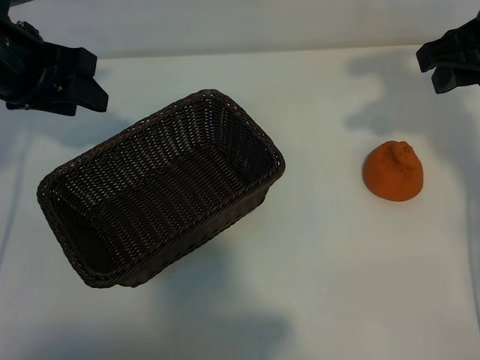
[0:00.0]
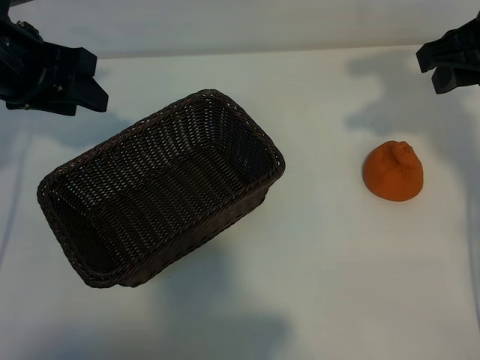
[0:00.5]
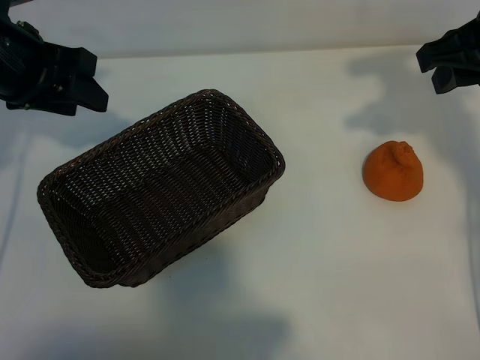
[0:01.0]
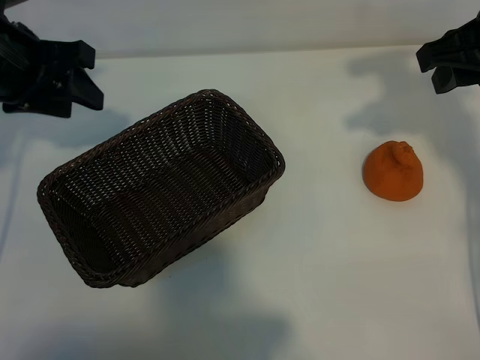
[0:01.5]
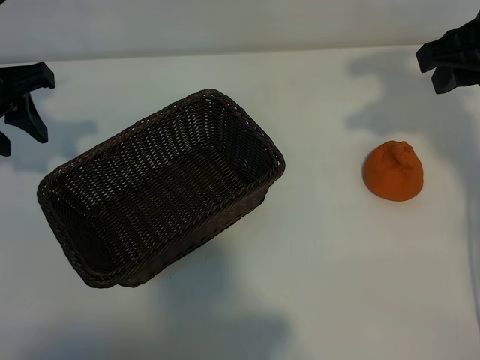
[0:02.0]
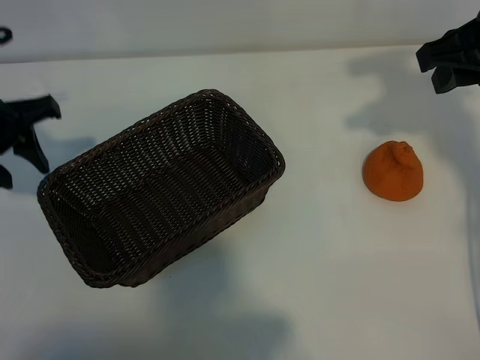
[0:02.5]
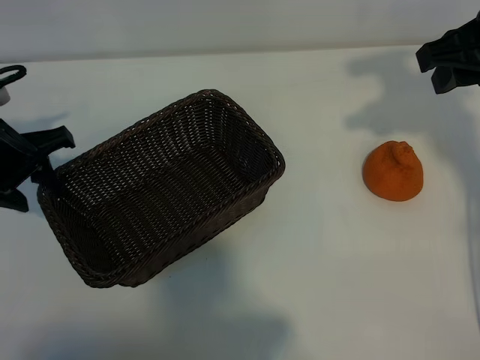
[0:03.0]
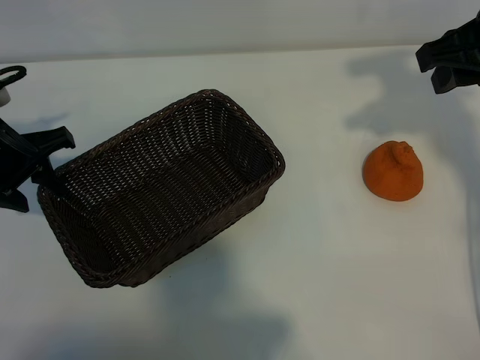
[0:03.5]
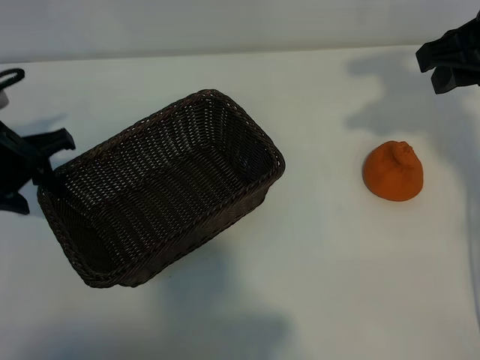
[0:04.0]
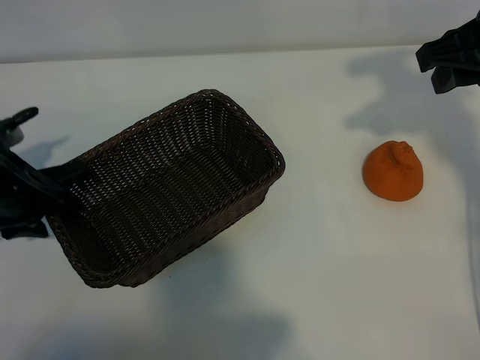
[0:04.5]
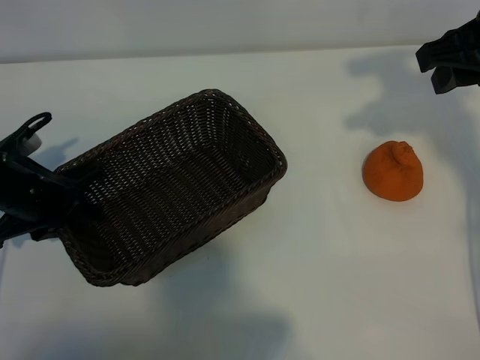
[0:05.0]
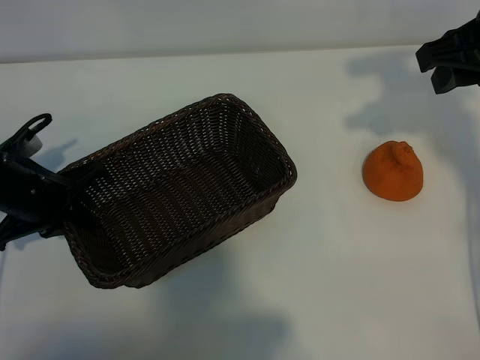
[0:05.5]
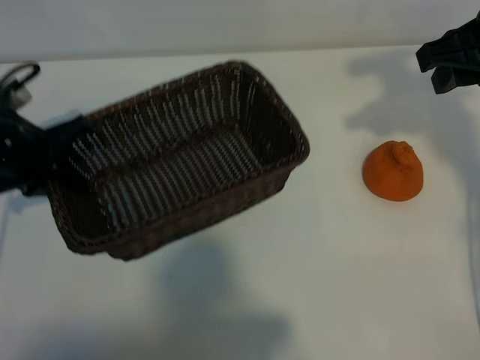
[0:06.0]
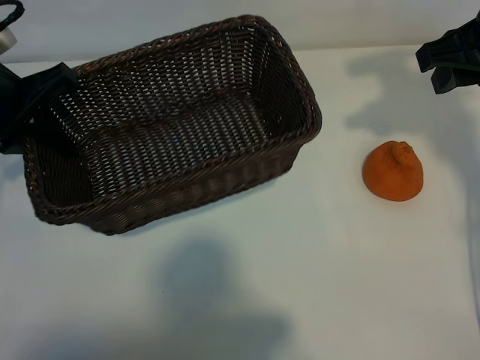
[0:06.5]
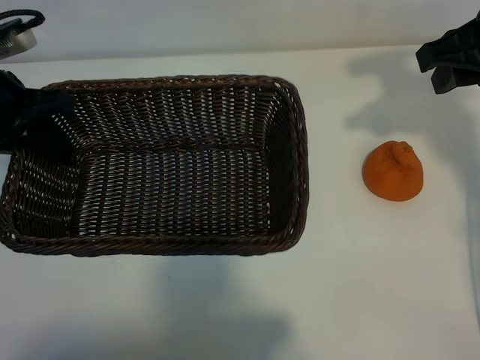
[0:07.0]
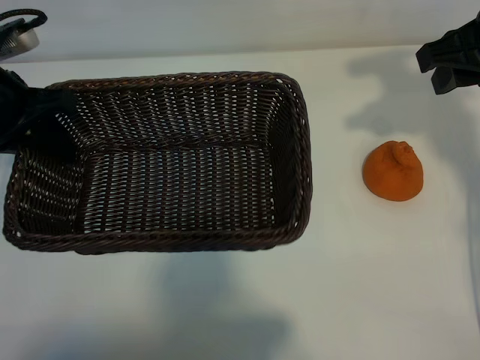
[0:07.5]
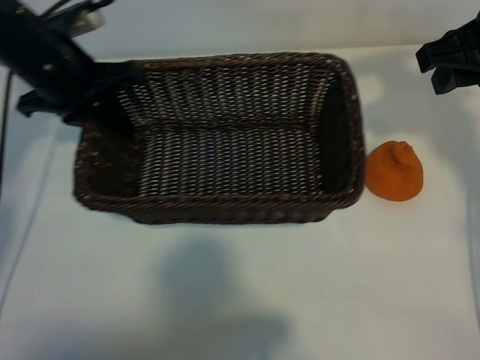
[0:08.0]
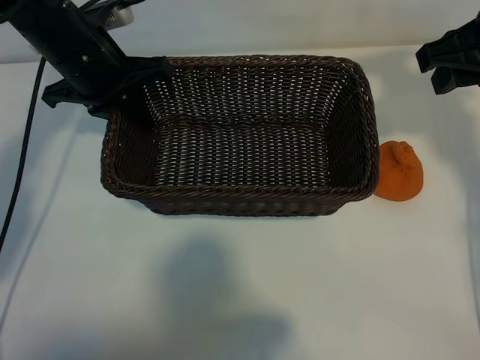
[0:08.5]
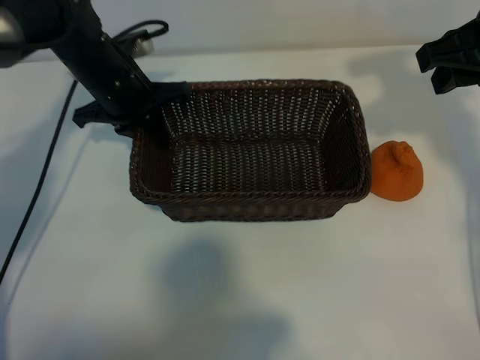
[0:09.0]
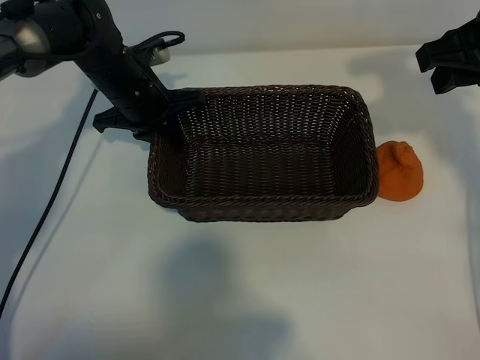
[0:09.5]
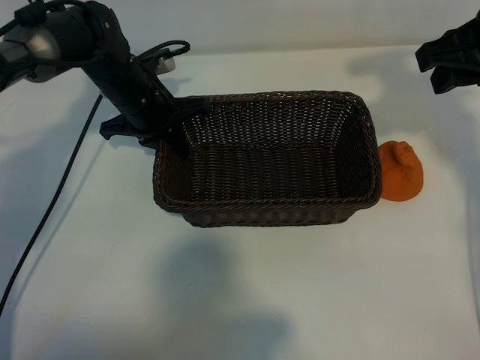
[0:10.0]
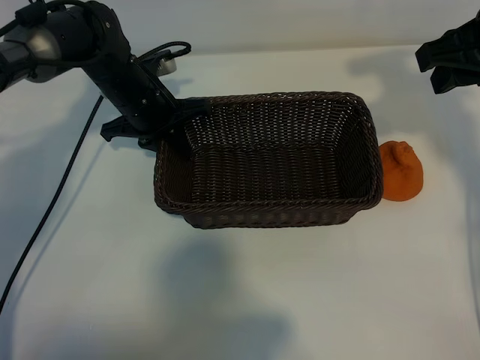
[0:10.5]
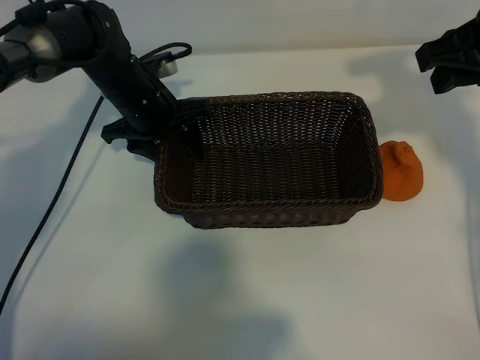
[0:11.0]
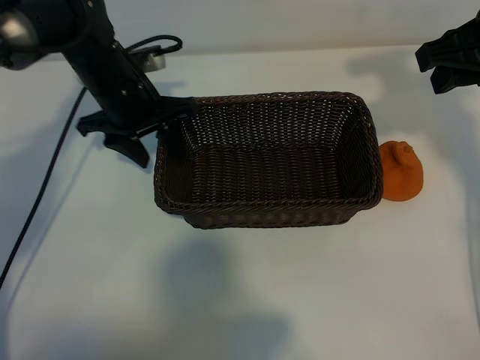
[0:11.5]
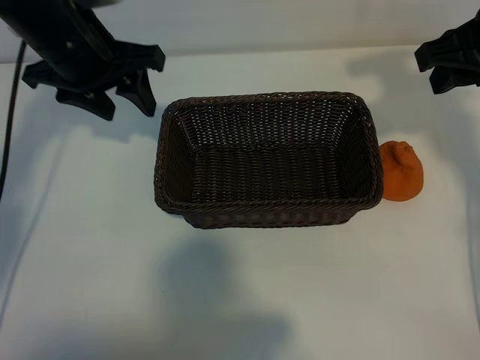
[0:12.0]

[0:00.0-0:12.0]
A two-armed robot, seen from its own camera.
Task of the whole recording: pick up the orange and put it into the basket.
Step, 0:01.5 to 0:05.0: Grasp the basket with left gripper.
Step, 0:05.5 to 0:10.5: Place the basket in the center of view with left gripper.

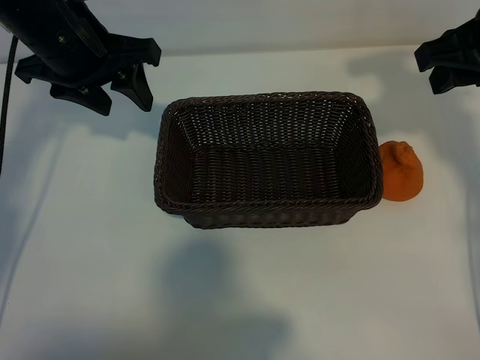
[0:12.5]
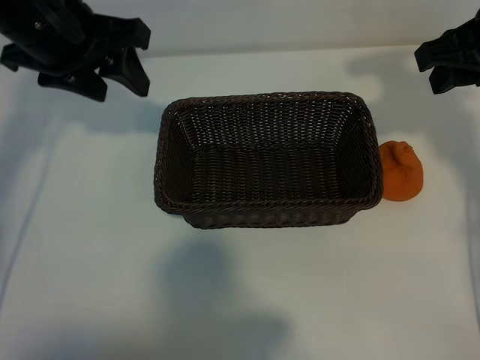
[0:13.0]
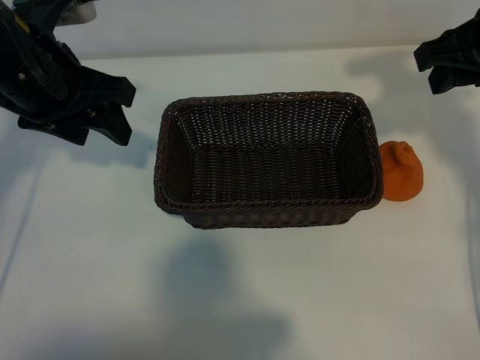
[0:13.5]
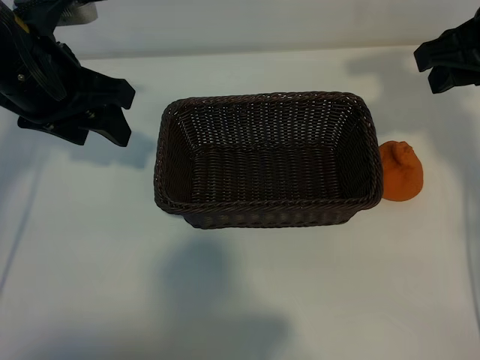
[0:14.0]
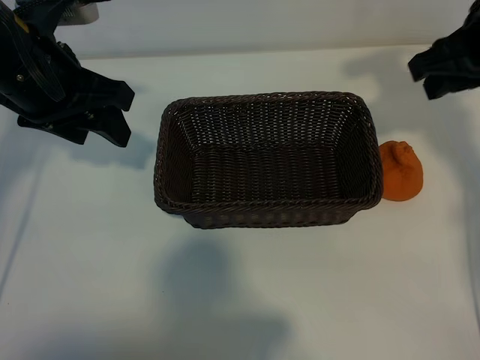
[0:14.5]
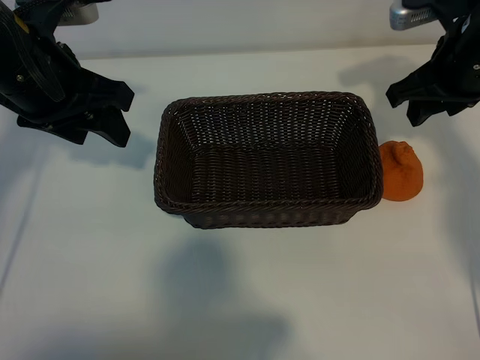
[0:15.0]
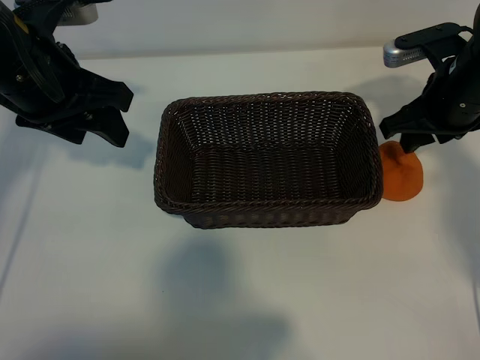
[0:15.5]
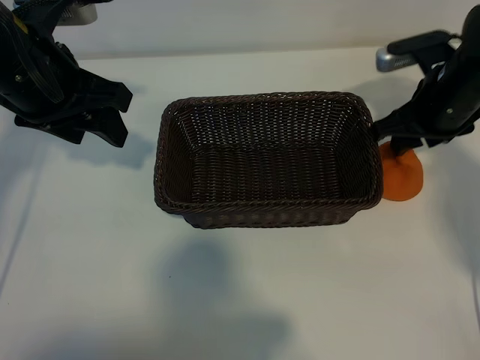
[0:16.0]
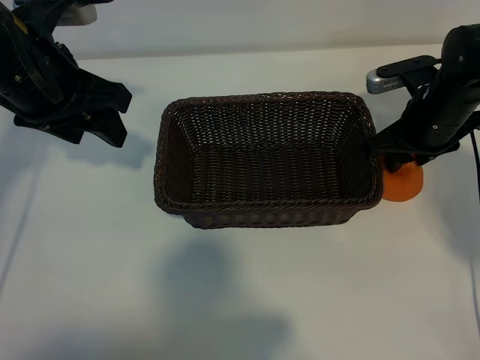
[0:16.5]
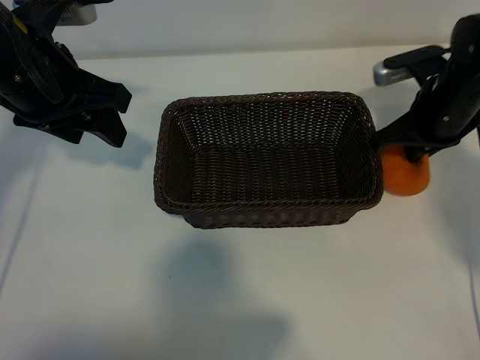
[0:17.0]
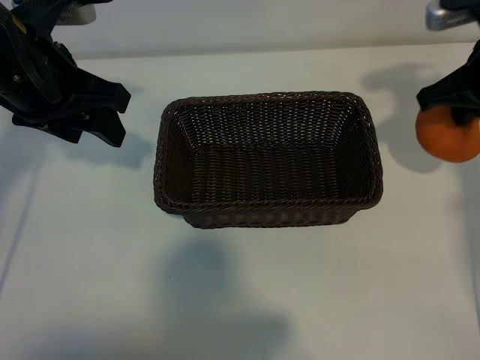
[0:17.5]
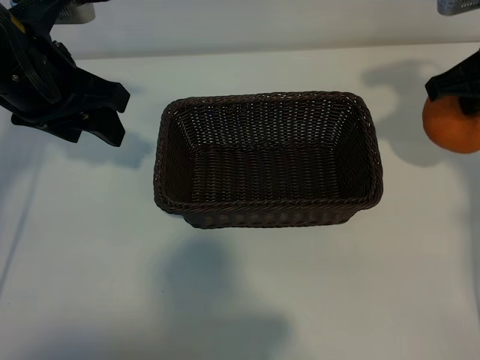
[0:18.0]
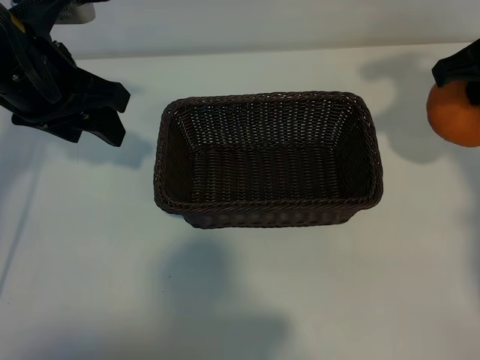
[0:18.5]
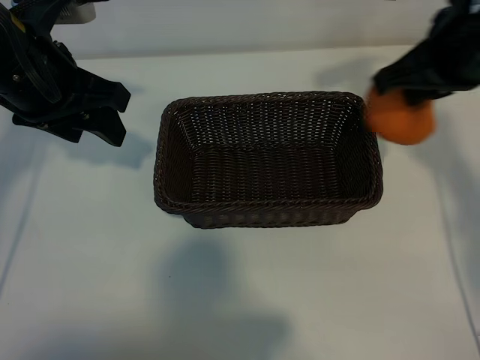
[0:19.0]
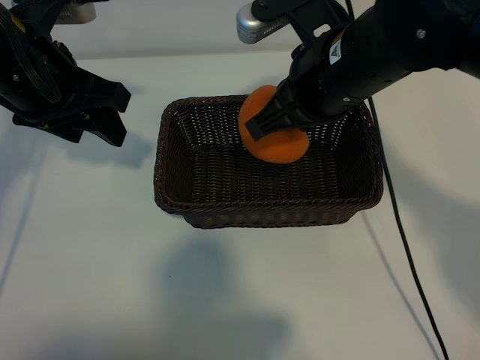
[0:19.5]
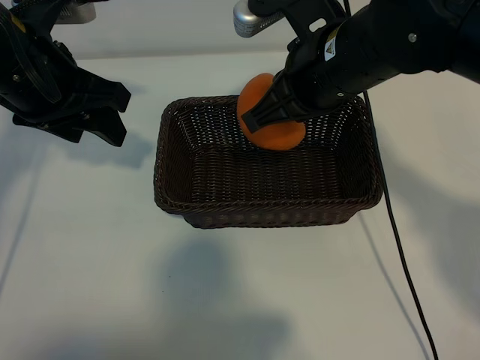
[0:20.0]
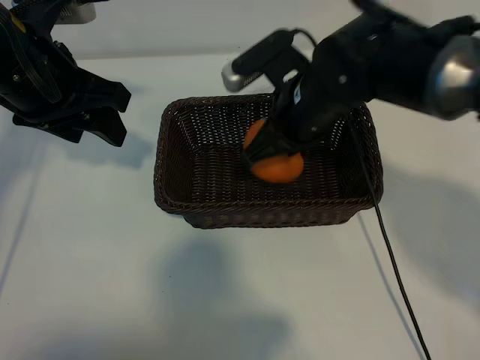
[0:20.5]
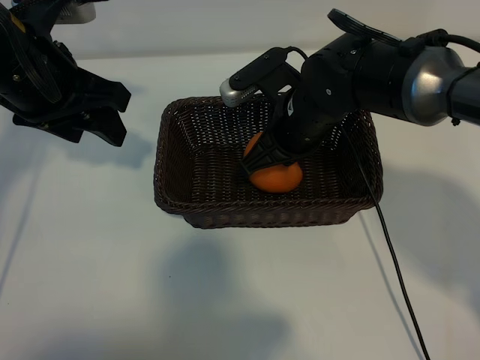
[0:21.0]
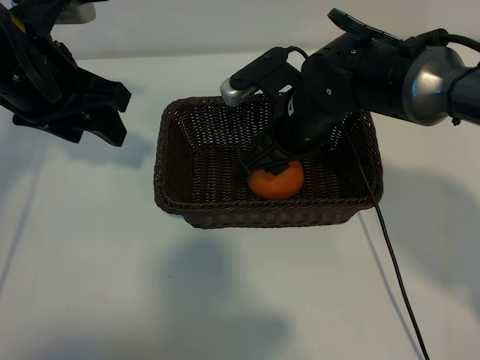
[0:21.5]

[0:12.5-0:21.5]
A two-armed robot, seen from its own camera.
Task of the whole recording: pick up the orange and put it into the basket.
Step, 0:12.5 to 0:16.5: Grasp the orange with right gripper.
Step, 0:17.0 to 0:21.0: Place the orange in the basket with right gripper.

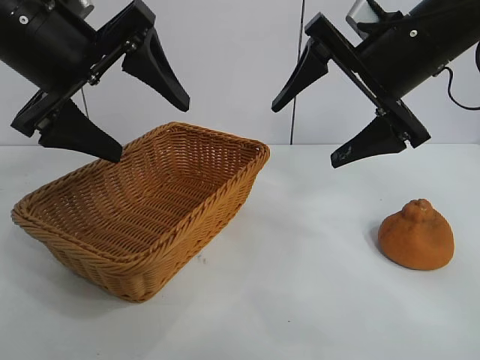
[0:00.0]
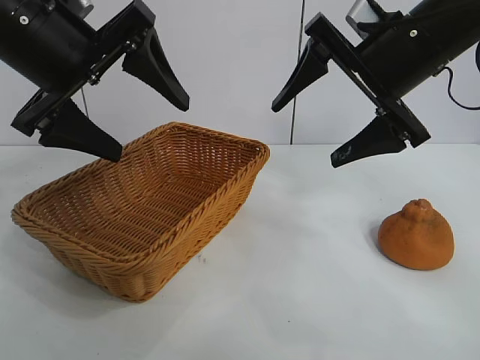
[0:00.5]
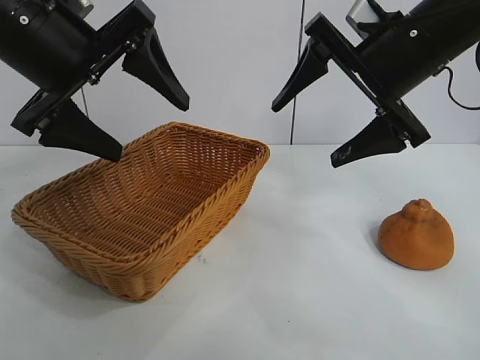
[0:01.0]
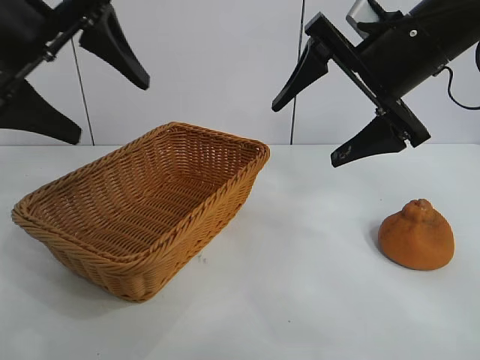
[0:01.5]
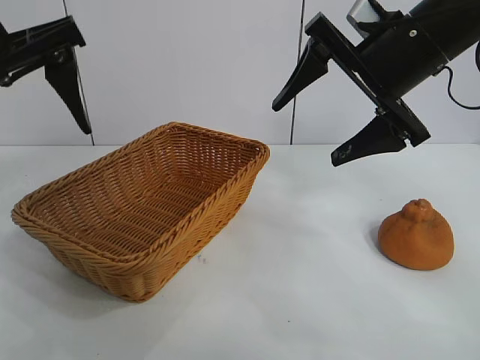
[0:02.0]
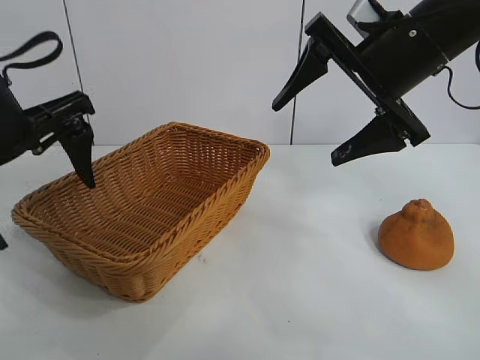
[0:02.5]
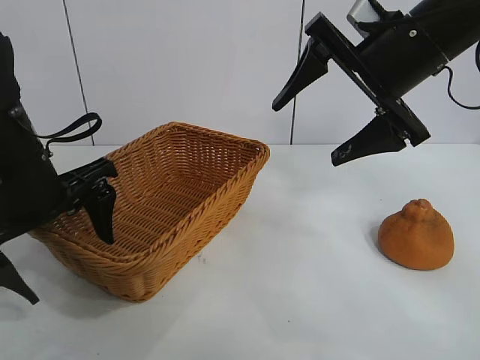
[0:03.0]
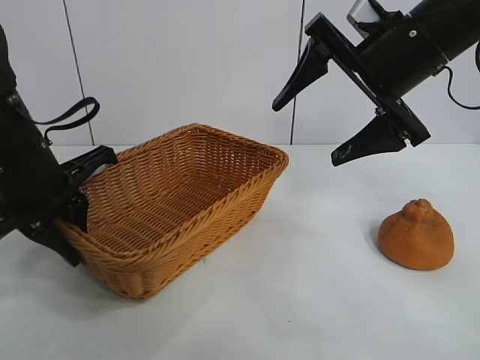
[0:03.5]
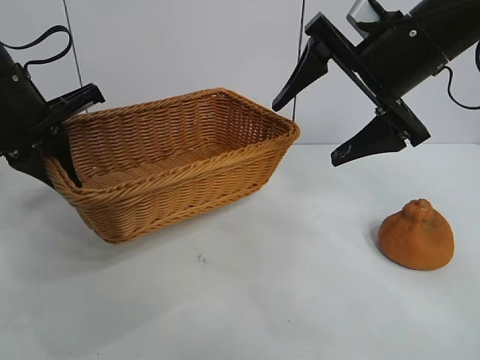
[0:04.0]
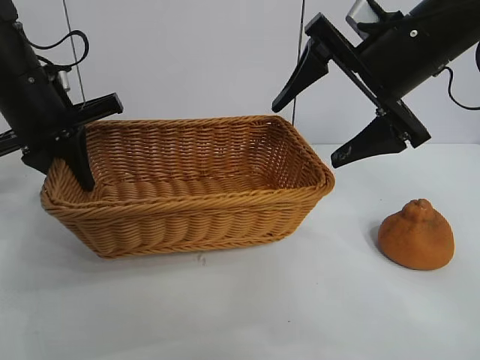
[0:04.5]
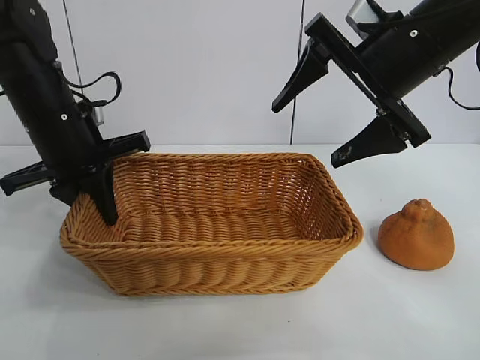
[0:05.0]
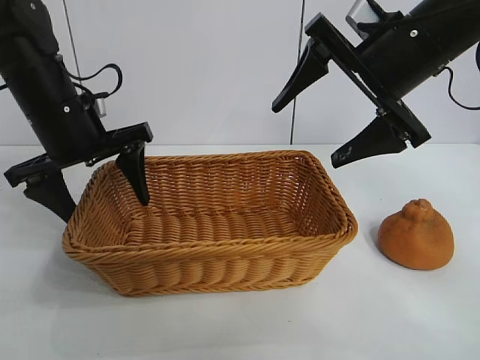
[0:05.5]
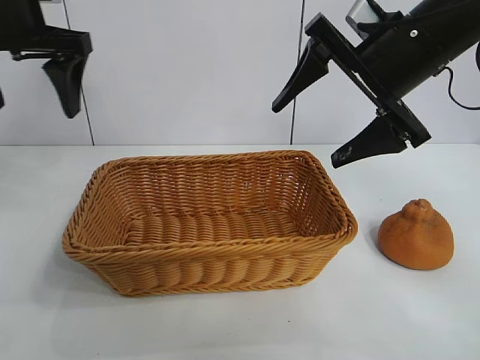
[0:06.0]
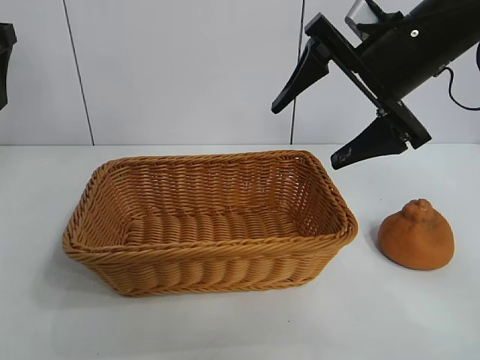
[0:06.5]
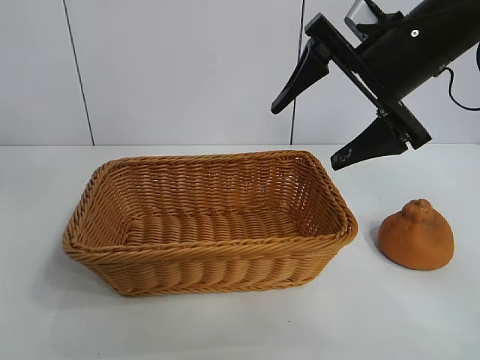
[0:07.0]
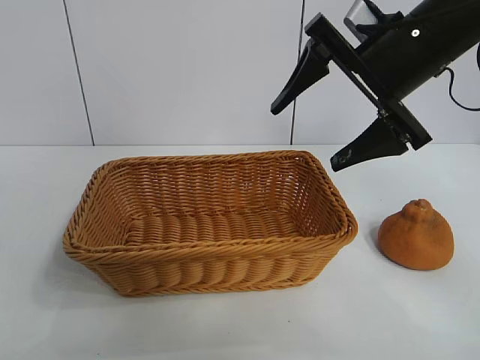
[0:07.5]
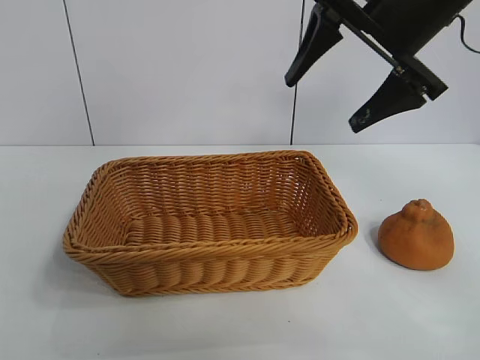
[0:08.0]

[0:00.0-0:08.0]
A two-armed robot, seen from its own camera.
Task of the whole recording: pick up the orange and put it into the basket.
Step, 0:00.0 to 0:03.0: Grasp the basket with left gripper.
Step, 0:03.5 to 0:05.0: Place the basket in the center of view with left gripper.
